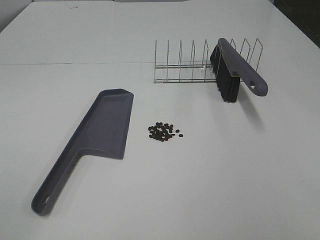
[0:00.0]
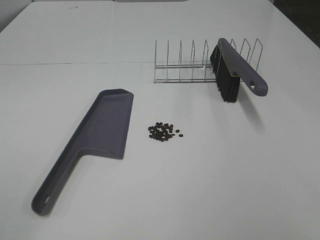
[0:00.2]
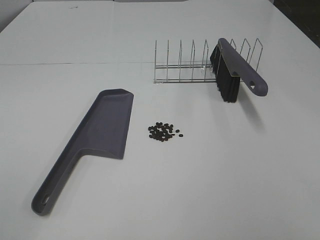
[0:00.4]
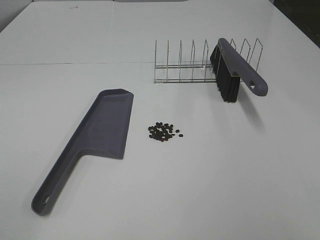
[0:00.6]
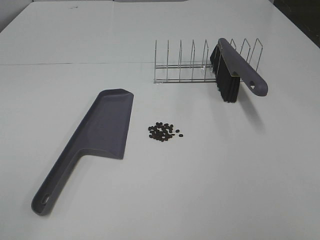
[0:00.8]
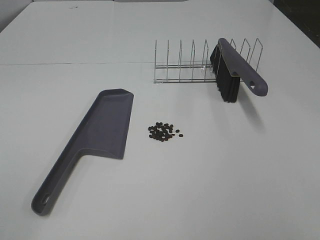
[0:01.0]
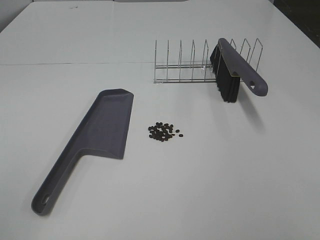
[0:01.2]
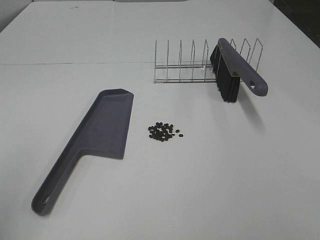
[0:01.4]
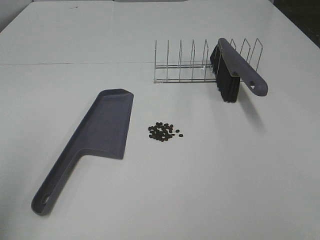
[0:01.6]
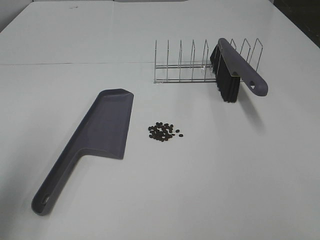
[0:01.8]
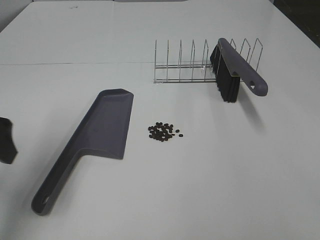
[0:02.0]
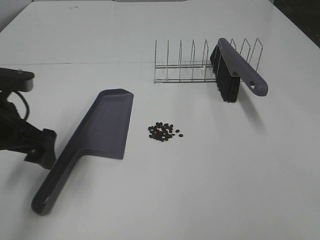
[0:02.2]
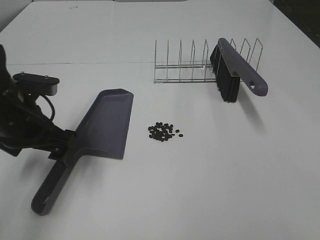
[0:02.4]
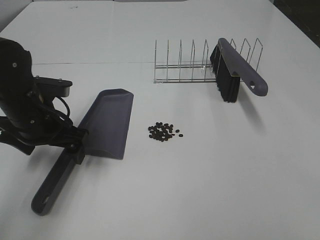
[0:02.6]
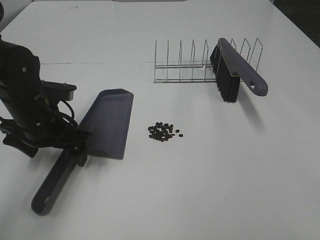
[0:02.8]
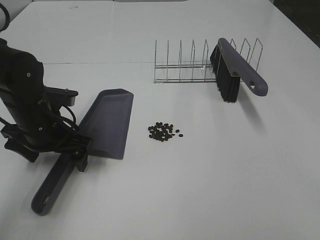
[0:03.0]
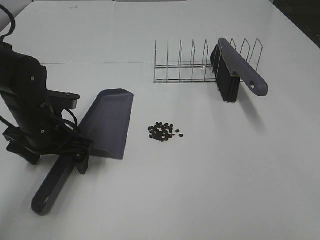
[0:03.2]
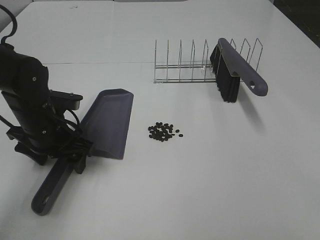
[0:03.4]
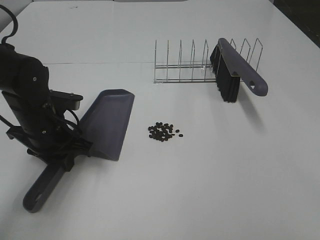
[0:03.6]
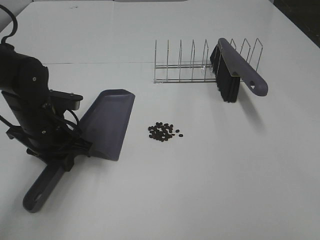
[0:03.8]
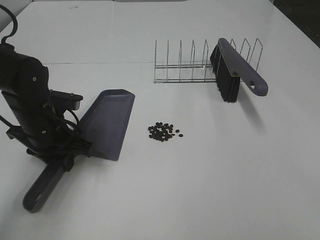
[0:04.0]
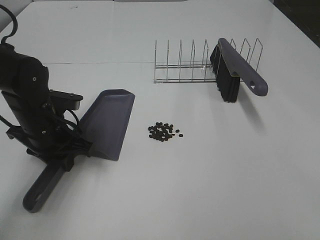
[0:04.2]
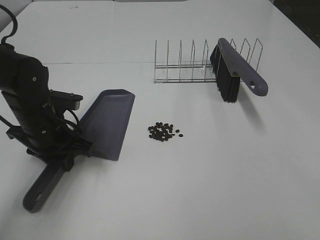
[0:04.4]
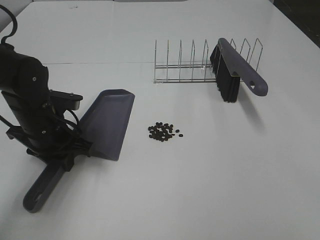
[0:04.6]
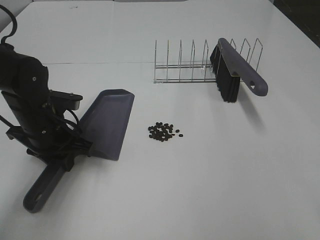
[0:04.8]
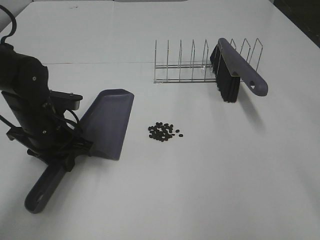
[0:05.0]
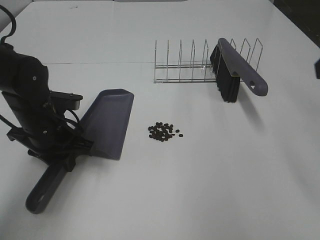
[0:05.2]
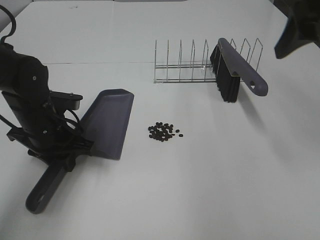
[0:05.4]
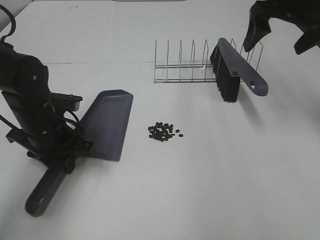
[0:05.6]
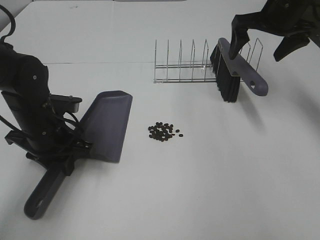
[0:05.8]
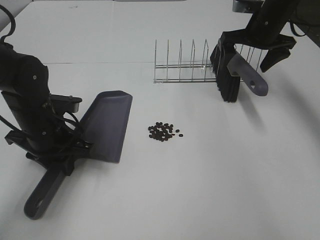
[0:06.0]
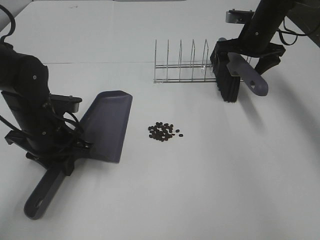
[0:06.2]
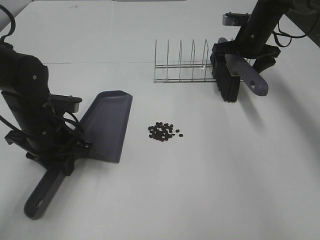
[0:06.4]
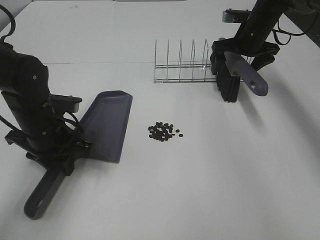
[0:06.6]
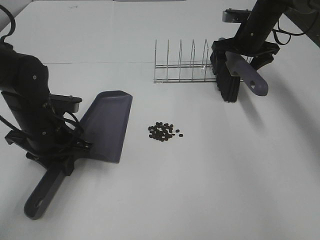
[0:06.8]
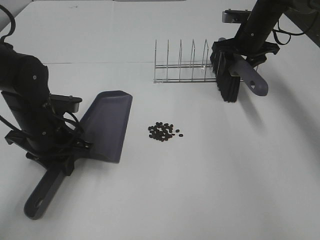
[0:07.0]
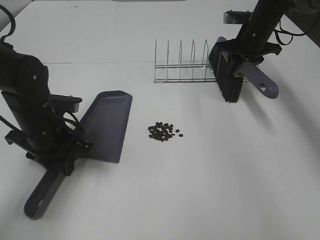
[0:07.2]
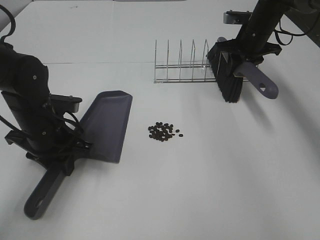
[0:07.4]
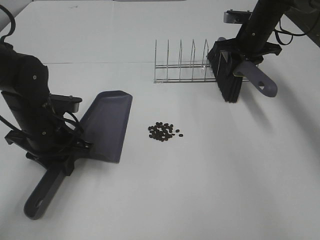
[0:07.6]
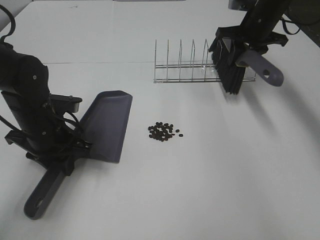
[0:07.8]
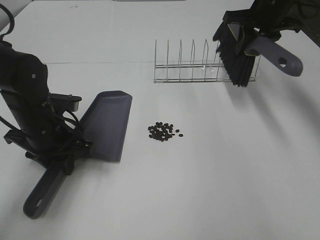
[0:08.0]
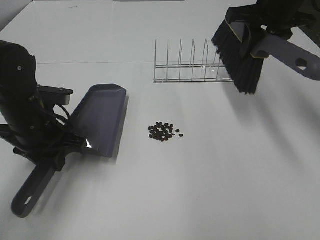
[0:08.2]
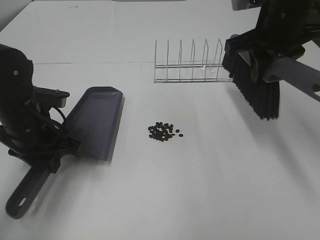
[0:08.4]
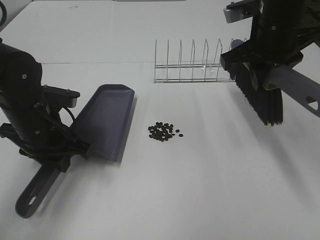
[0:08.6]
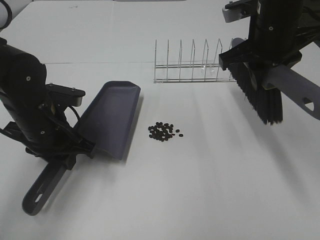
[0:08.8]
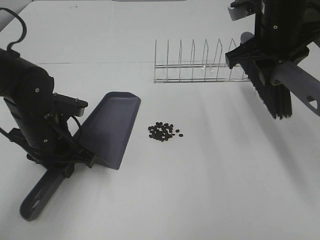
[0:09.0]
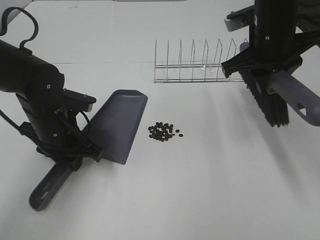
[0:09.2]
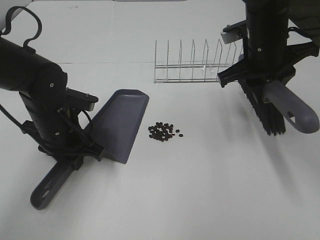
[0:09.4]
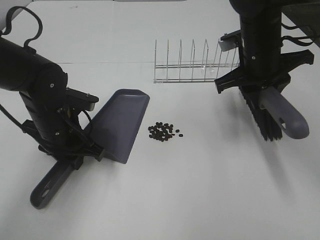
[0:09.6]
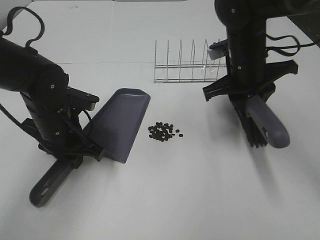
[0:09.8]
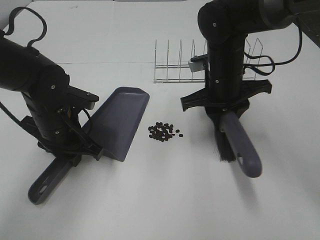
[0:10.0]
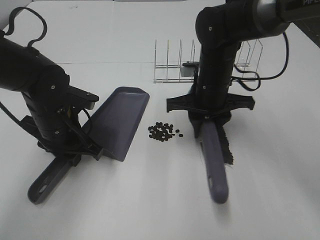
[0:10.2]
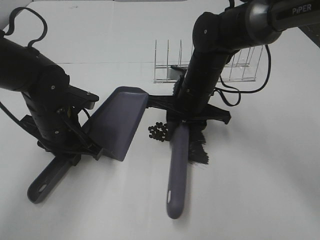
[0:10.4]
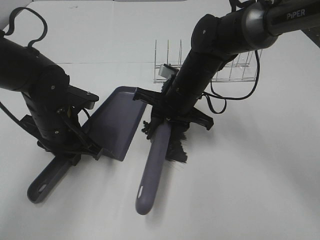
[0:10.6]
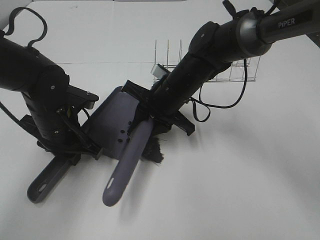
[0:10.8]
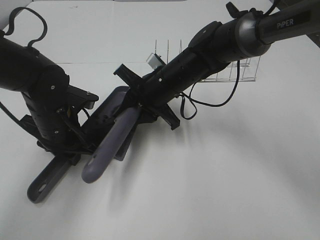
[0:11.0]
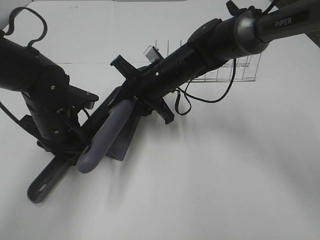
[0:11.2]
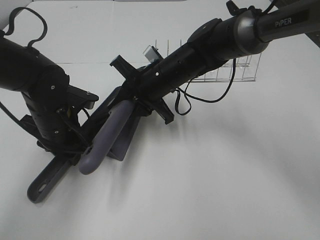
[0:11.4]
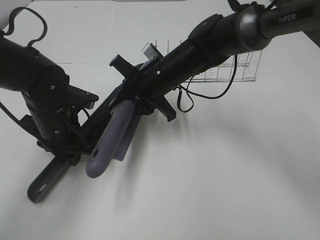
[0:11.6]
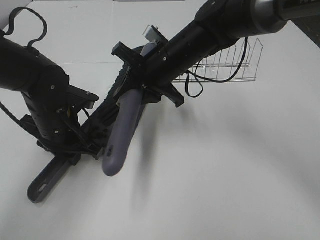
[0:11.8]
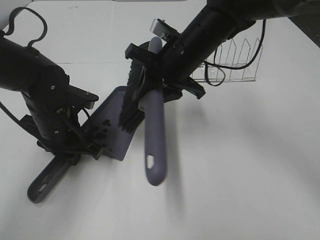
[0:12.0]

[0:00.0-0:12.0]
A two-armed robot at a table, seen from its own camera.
Task of the whole recording: Sweep Coffee Bean.
Step, 0:00.0 to 0:03.6: Left hand: grab the dustpan.
Step, 0:04.6 to 0:07.2: Right hand:grab the broom.
Step, 0:07.4 to 0:11.8: Right hand:sweep the coffee beans into the dustpan.
0:00.0 to 0:01.6: The left gripper goes about 10 cm forward.
0:01.6 to 0:03.0: The left gripper heads downward, forward and to the right, covering some 30 cm.
0:03.0 to 0:04.4: The left gripper closes up.
0:04.4 to 0:06.0: The right gripper heads forward, covering some 50 cm, and opens.
0:06.0 to 0:07.6: The right gripper closes up.
0:07.6 to 0:09.0: The right gripper goes about 20 cm backward and upward.
0:09.0 to 0:10.4: The right gripper moves downward and to the left, some 15 cm.
0:10.4 to 0:12.0: The right gripper travels upward by approximately 5 cm.

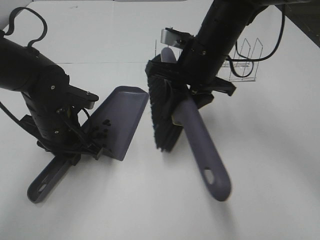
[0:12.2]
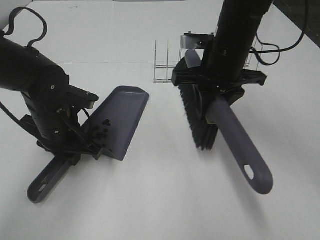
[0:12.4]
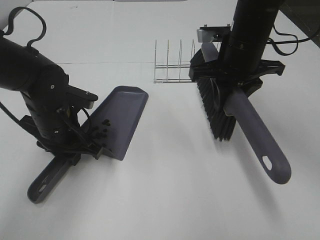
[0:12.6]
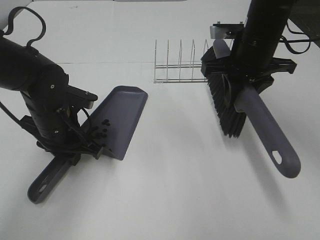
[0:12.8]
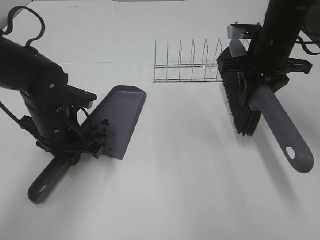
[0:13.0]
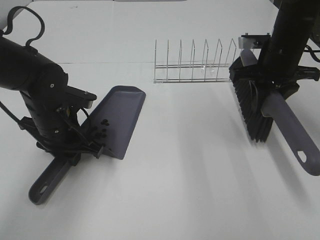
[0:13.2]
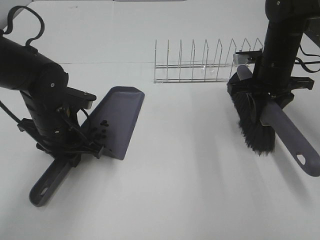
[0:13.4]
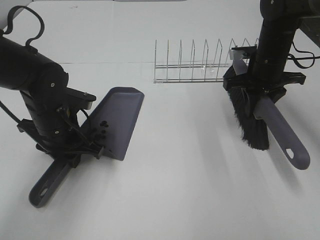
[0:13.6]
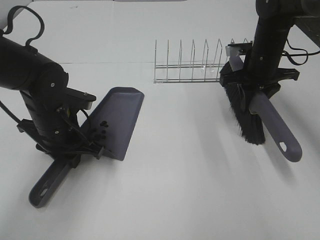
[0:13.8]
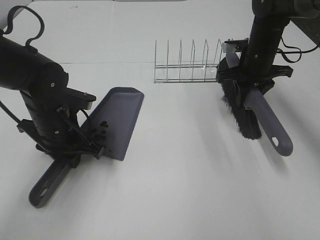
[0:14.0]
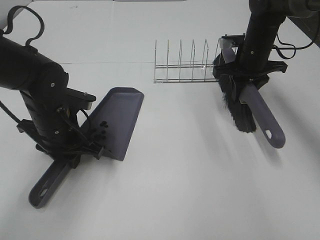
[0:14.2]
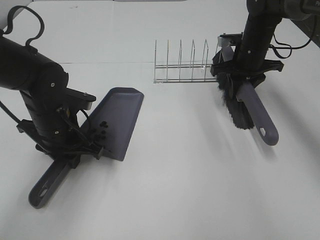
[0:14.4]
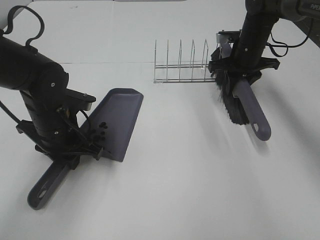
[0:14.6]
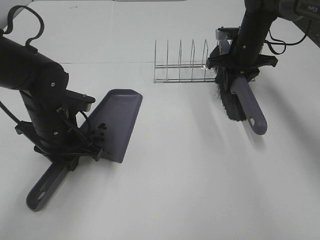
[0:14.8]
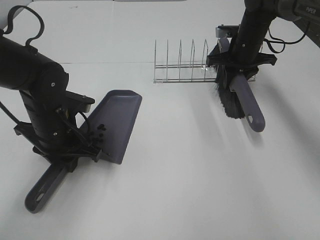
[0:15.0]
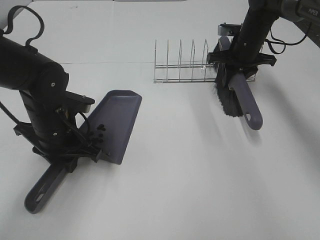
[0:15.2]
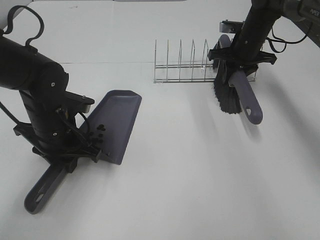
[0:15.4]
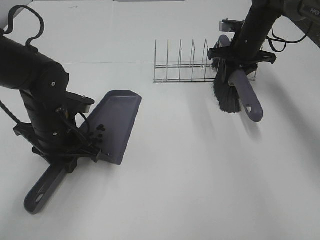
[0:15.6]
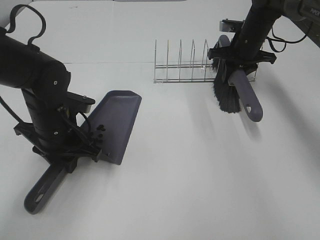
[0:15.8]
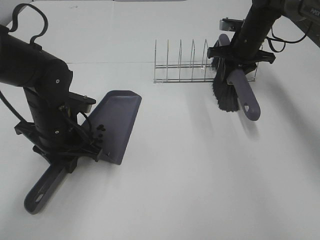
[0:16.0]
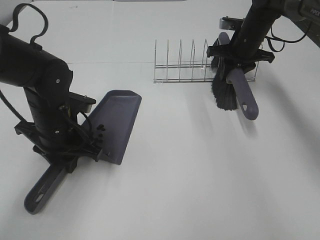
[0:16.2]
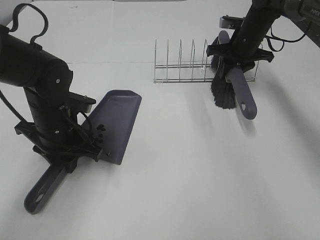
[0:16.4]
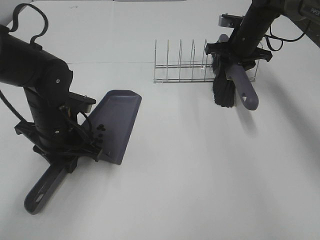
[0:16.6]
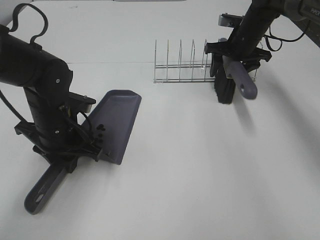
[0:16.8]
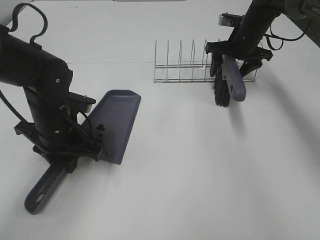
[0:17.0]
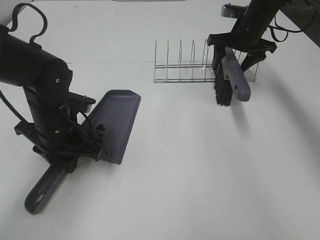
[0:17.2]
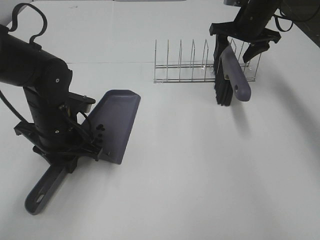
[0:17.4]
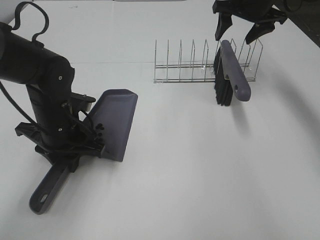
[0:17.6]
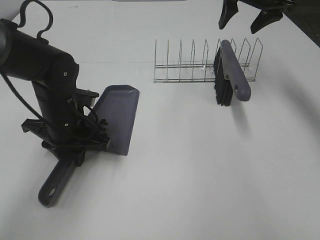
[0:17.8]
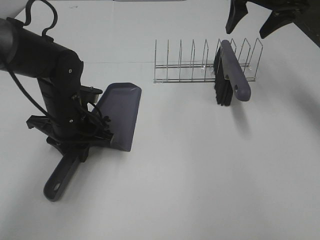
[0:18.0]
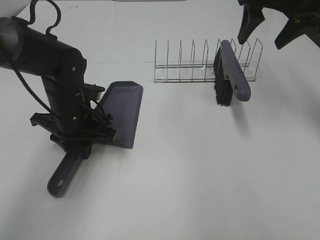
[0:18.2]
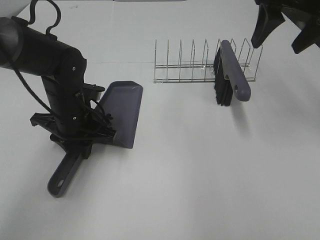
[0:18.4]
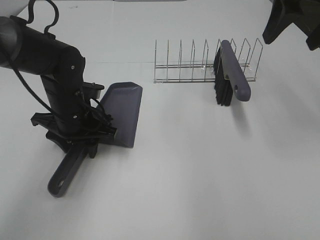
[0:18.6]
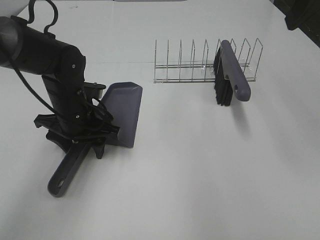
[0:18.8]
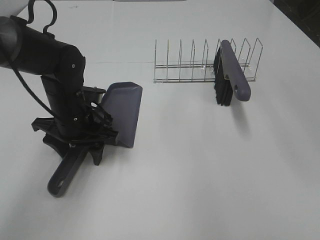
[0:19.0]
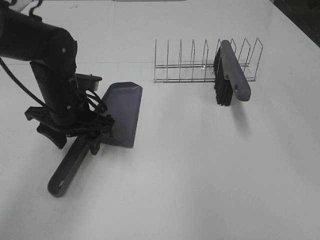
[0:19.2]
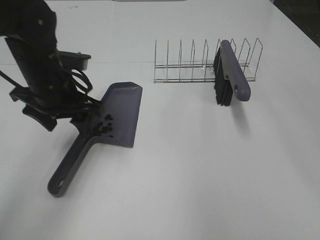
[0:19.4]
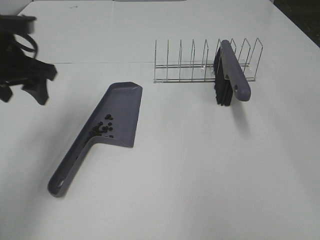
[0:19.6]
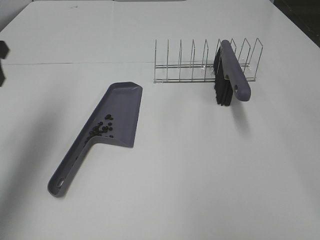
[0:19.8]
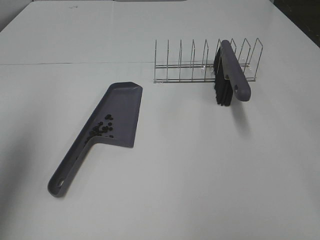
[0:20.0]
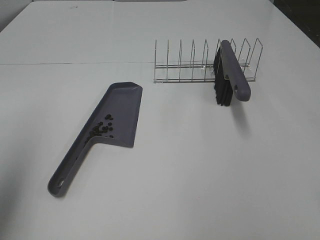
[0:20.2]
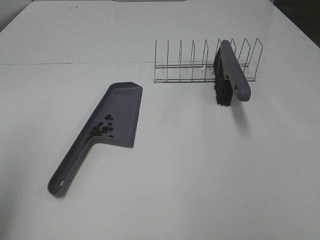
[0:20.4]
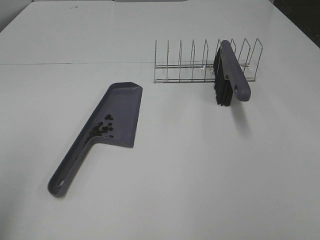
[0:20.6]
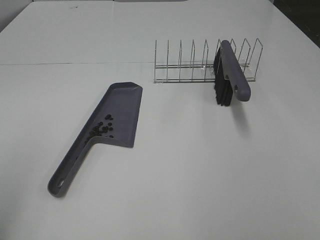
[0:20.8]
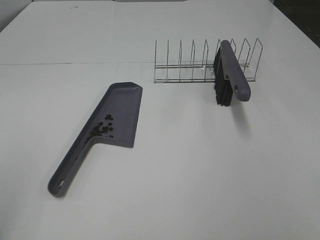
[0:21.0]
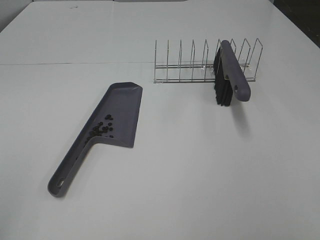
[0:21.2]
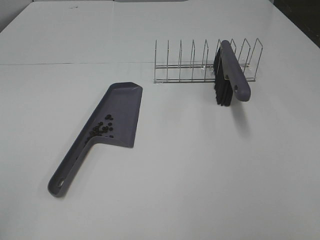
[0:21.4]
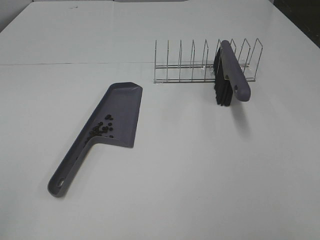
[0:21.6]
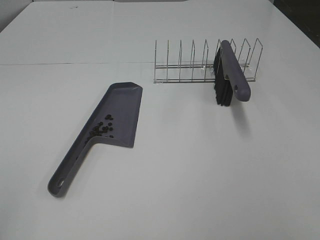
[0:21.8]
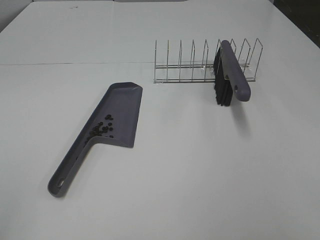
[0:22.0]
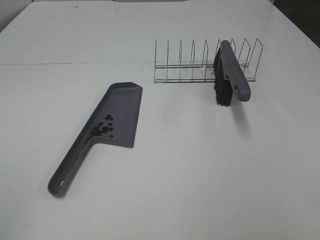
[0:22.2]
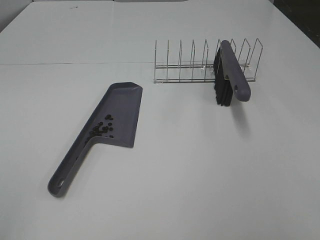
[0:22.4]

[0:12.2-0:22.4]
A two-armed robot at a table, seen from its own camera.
Task of the whole recording: Sweep Coffee Bean.
Step, 0:12.2 to 0:16.8: Right hand:place the broom on the rack.
0:12.2 to 0:13.6: The right gripper moves to the right, forward and downward, about 15 cm.
0:13.6 to 0:15.2: The right gripper is displaced forward by some 10 cm.
0:15.2 to 0:16.6: There are only small adjustments of the grippers.
0:16.6 to 0:18.0: The right gripper shifts roughly 15 cm upward and backward, and opens.
0:18.0 to 0:19.4: The right gripper goes some 25 cm backward and upward. The left gripper heads upward, covering some 10 cm, and opens.
0:19.4 to 0:21.0: The left gripper shifts approximately 35 cm backward and to the left.
